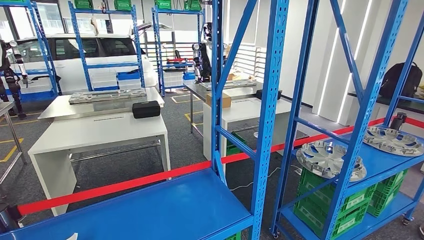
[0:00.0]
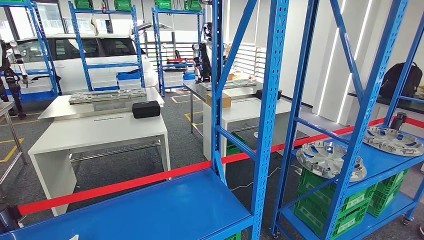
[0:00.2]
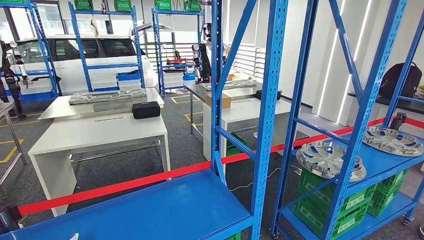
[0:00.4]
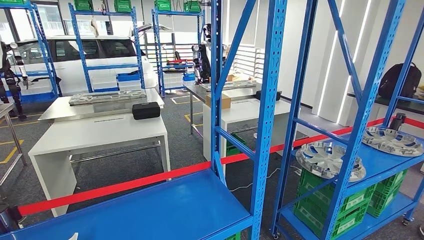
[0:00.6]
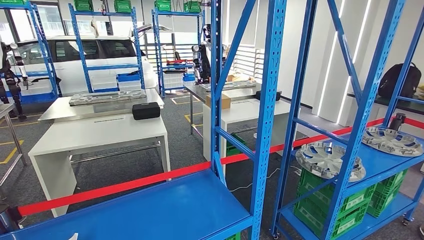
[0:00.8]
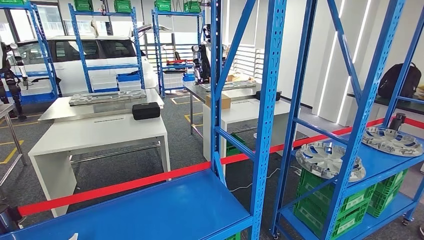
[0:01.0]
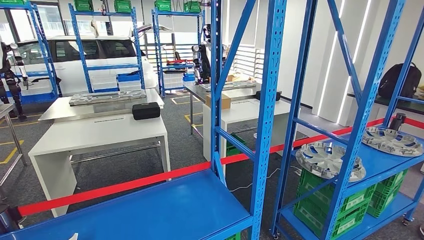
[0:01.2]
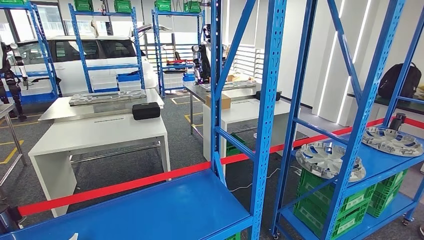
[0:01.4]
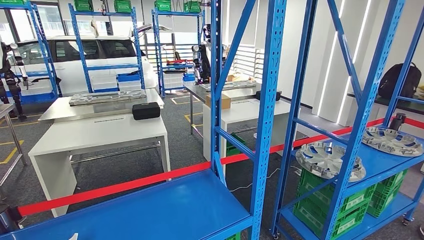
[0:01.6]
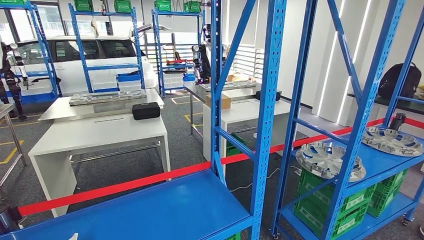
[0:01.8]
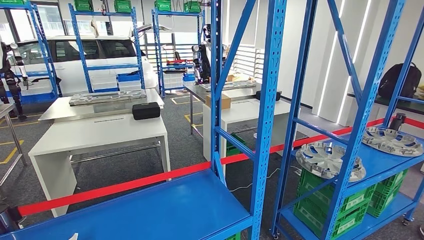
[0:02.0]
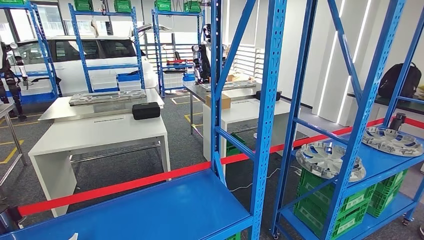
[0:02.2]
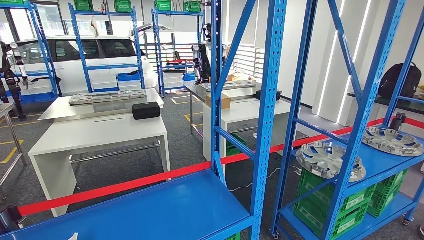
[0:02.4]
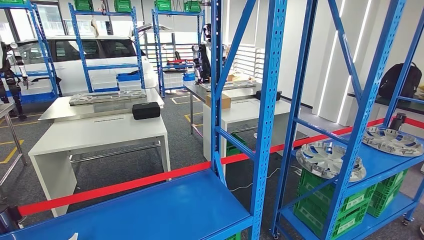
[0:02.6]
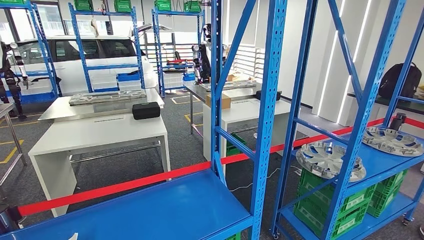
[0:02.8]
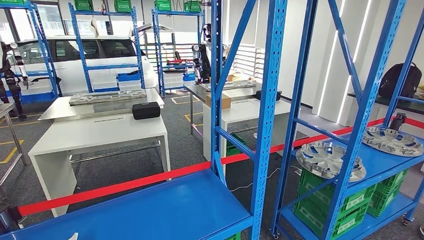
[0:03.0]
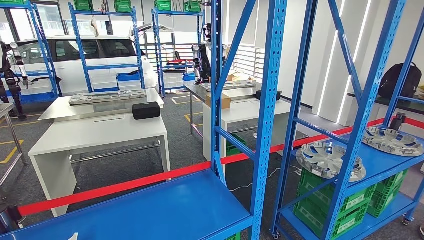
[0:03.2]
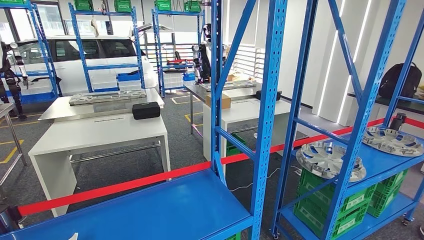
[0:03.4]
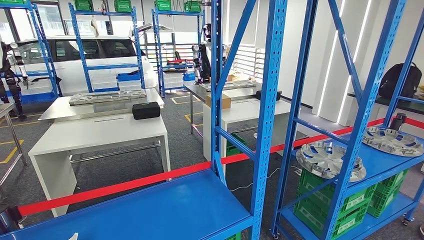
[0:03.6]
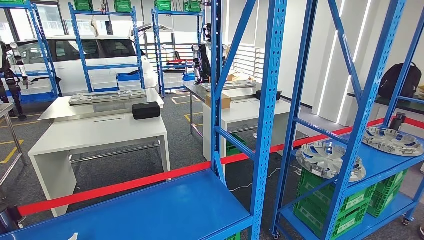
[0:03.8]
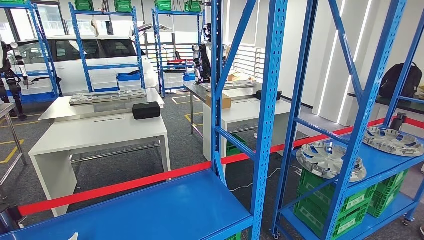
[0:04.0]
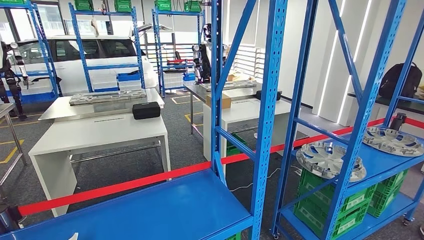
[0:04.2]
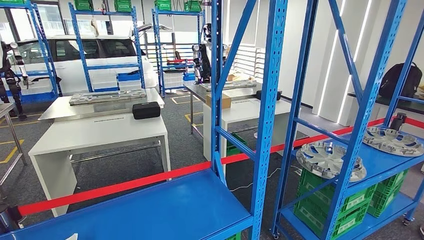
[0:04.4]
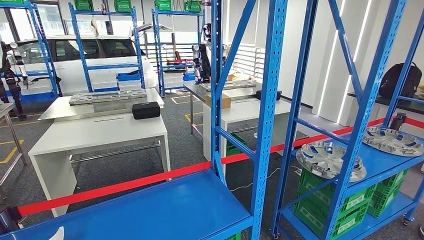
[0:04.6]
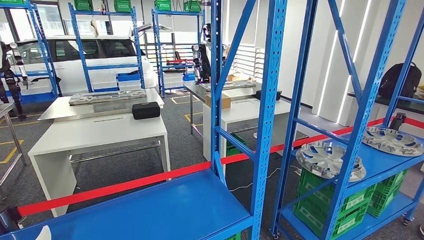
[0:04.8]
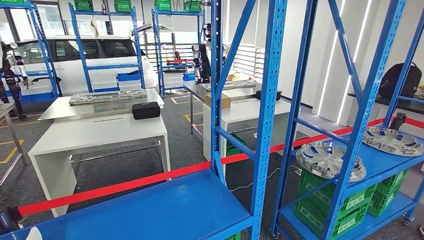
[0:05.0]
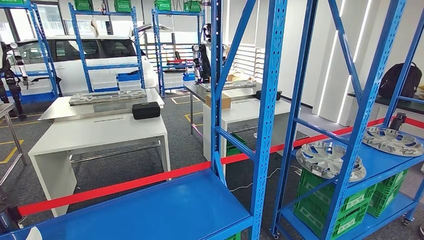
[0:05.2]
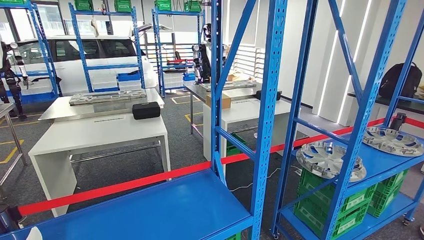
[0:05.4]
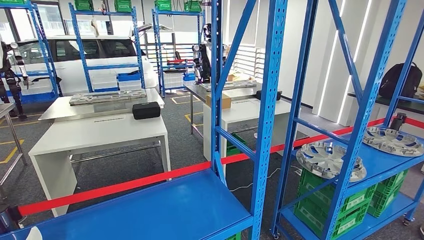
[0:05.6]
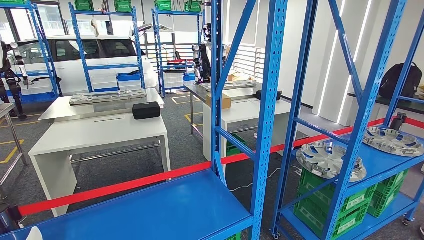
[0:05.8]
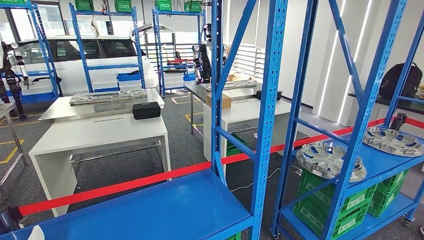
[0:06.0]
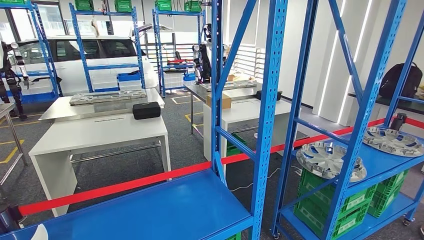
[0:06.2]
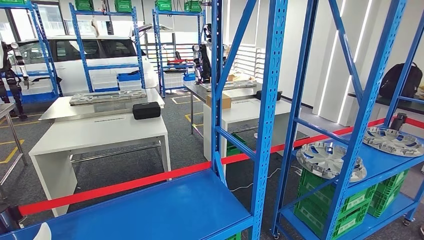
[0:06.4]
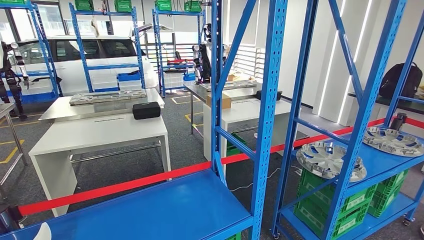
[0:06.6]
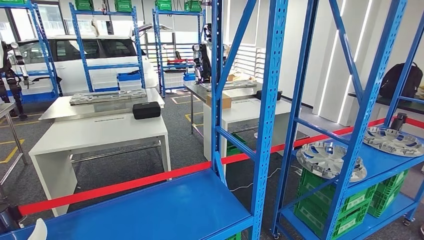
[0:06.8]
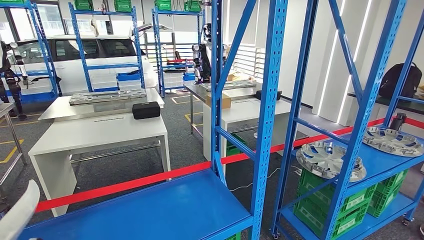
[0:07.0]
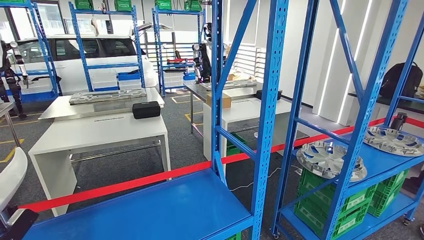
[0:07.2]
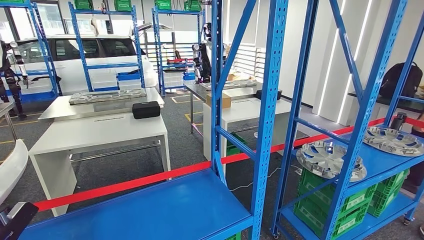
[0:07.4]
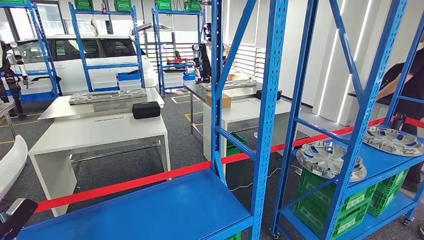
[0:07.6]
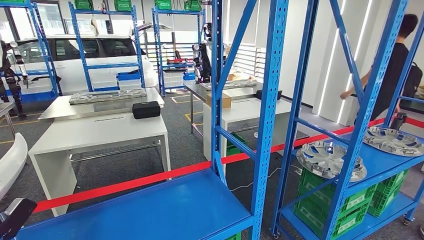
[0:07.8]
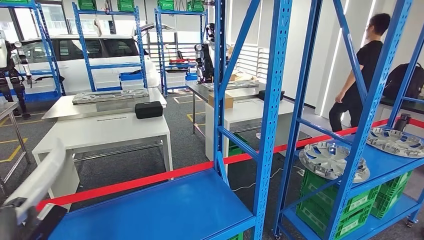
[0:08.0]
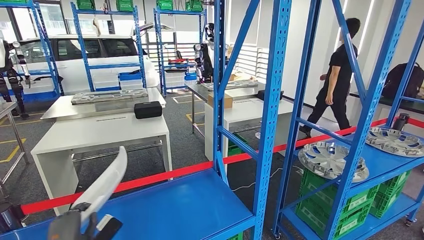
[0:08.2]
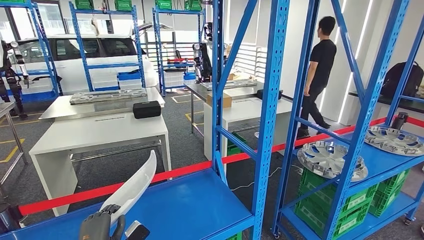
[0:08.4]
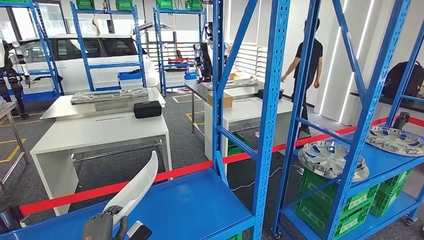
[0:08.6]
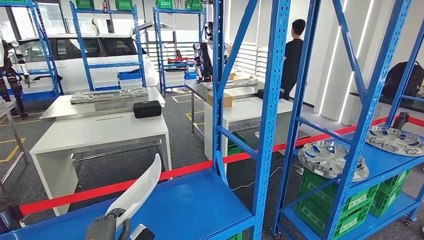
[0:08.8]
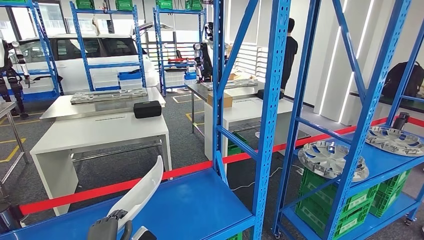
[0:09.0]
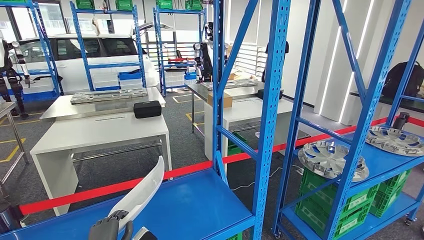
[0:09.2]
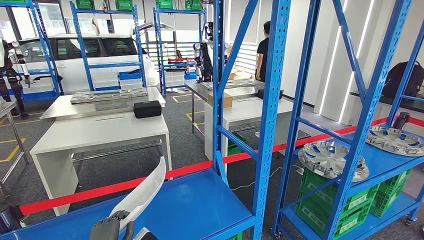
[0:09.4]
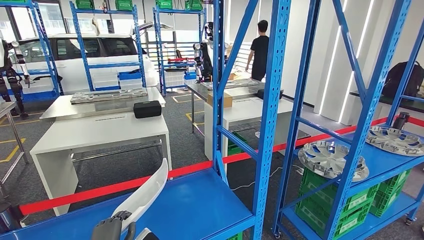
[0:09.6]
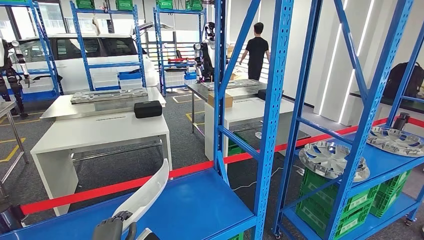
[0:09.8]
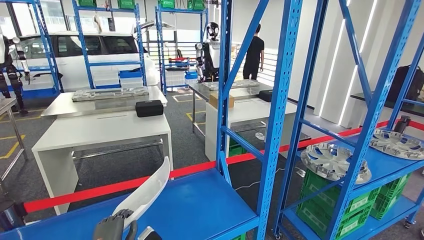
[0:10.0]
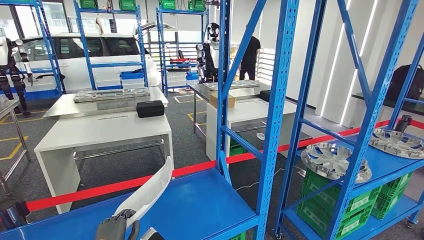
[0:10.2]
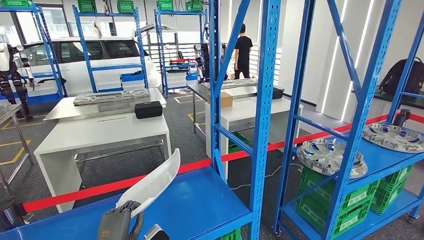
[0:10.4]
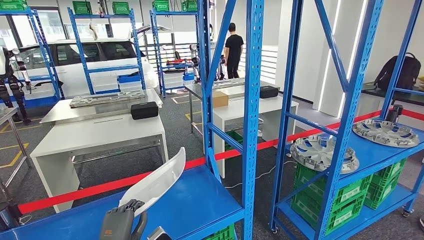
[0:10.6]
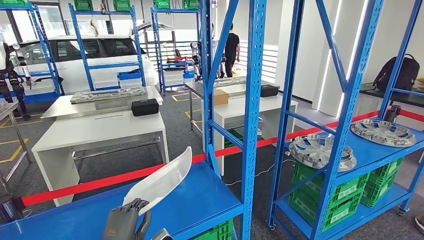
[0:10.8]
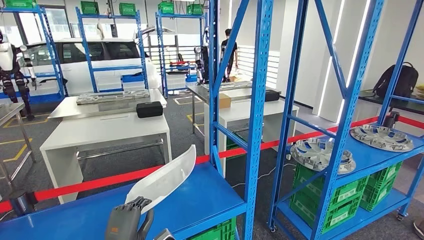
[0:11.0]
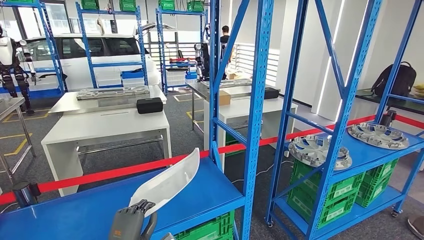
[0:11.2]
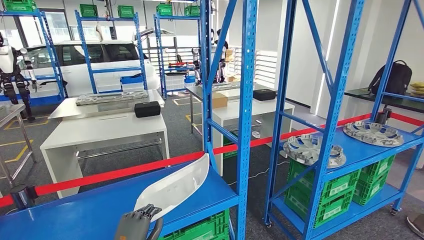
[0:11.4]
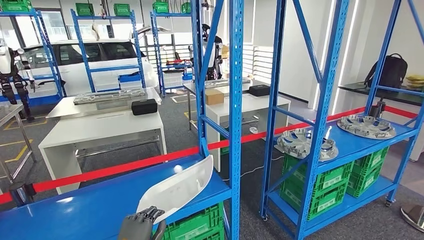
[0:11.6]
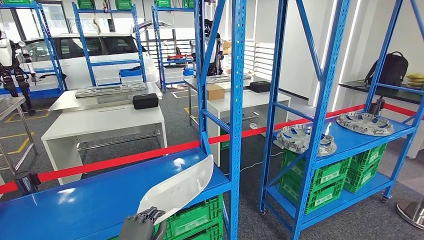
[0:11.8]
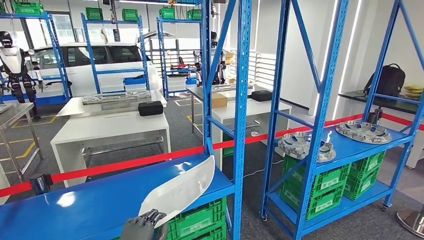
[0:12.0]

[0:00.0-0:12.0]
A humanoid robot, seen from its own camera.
Step, 0:00.0 to 0:07.6: Pick up the small component from the shelf.
0:00.0 to 0:01.6: Both hands stay about where they are.
0:01.6 to 0:03.0: Both hands stay about where they are.
0:06.0 to 0:07.6: The left hand heads upward and forward, covering some 20 cm.

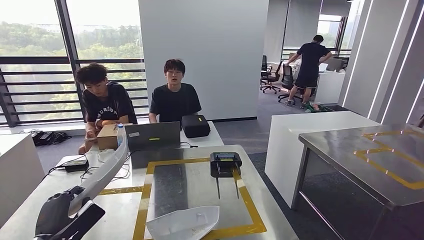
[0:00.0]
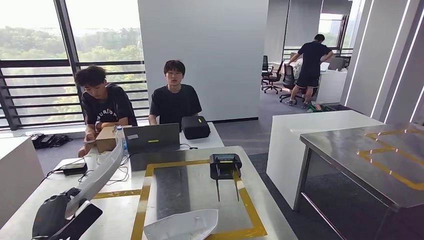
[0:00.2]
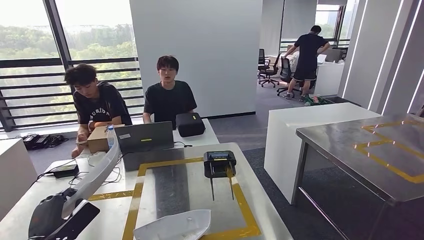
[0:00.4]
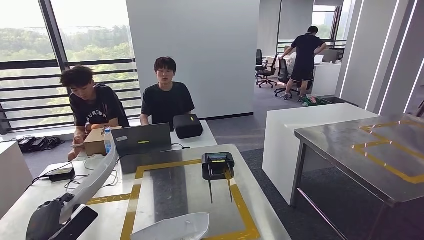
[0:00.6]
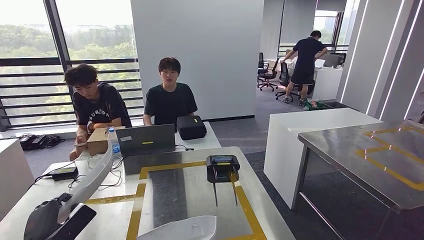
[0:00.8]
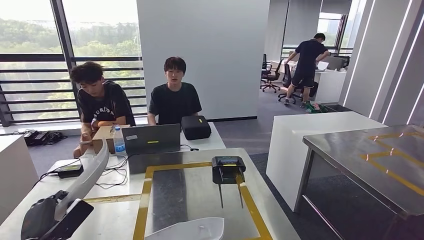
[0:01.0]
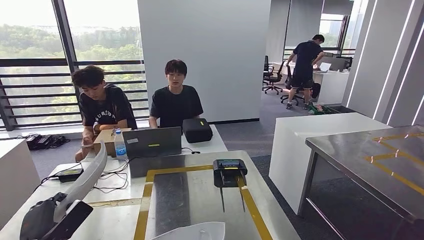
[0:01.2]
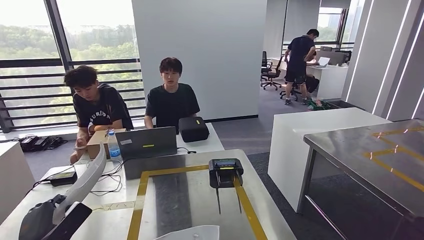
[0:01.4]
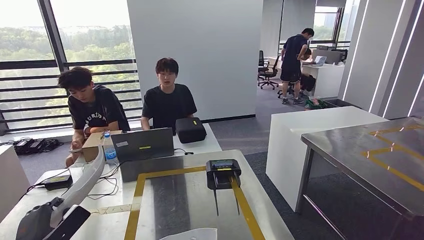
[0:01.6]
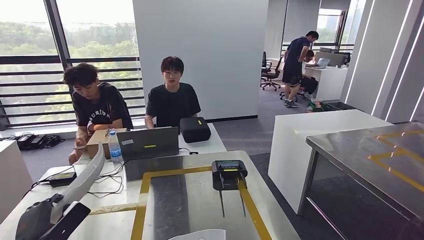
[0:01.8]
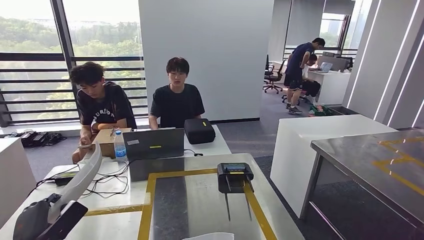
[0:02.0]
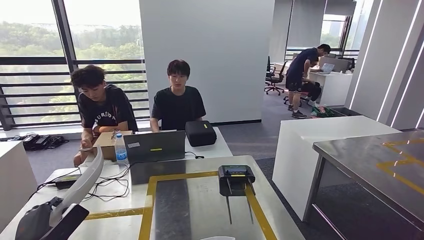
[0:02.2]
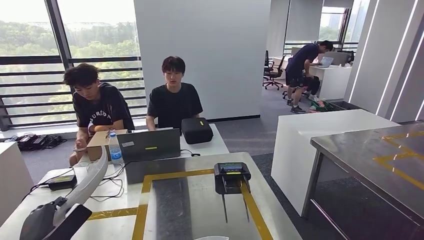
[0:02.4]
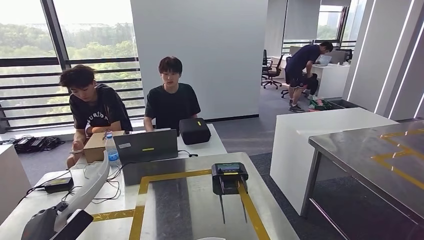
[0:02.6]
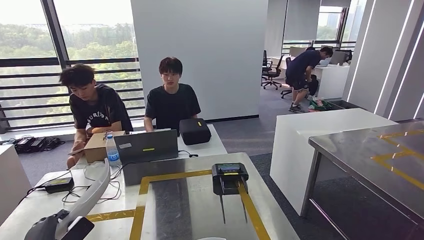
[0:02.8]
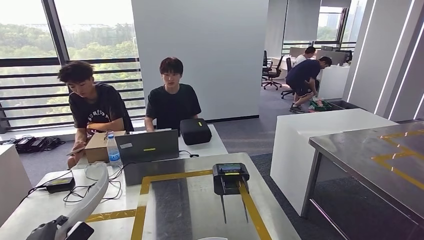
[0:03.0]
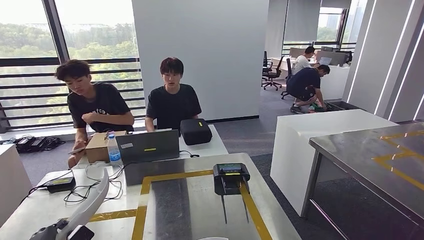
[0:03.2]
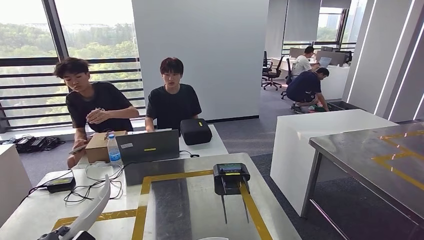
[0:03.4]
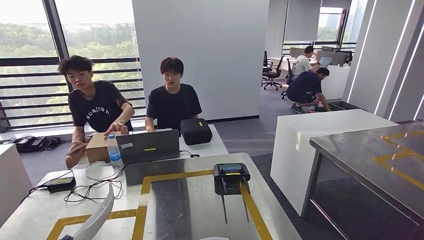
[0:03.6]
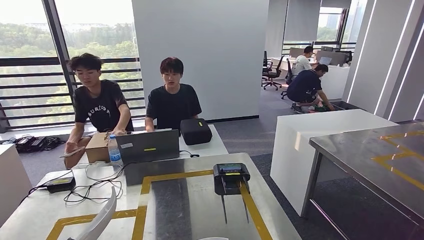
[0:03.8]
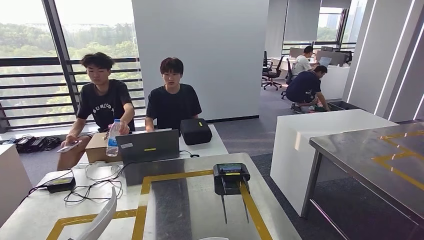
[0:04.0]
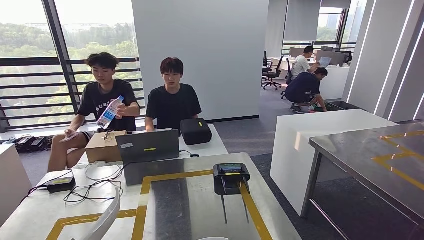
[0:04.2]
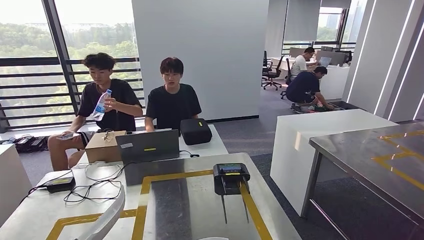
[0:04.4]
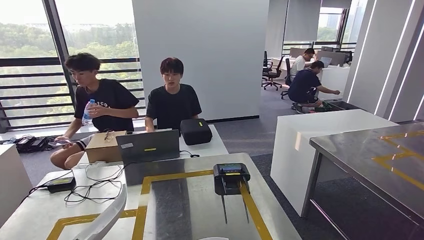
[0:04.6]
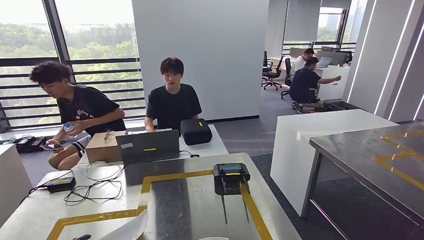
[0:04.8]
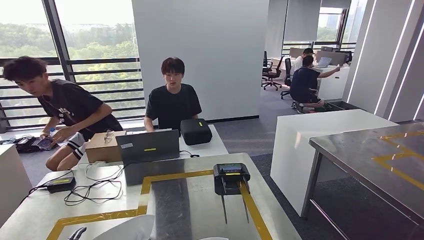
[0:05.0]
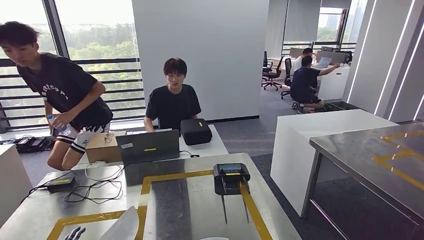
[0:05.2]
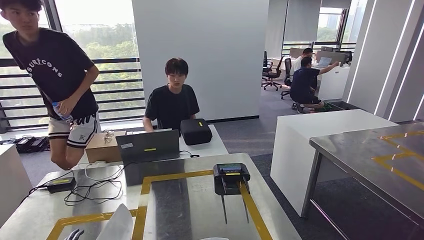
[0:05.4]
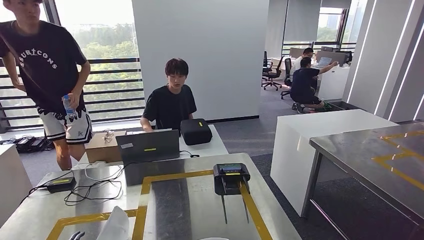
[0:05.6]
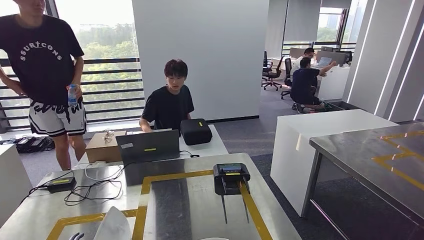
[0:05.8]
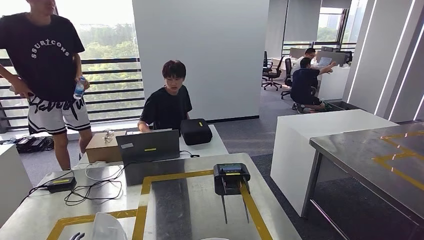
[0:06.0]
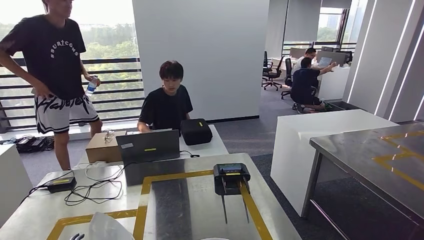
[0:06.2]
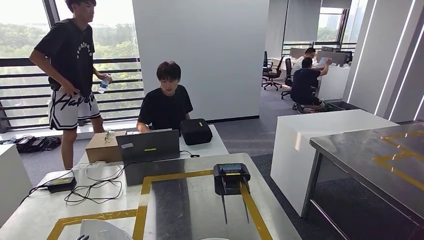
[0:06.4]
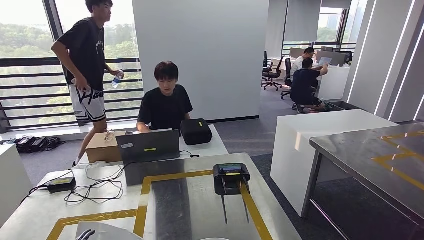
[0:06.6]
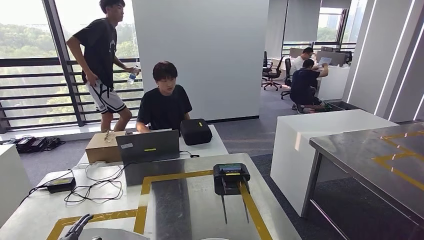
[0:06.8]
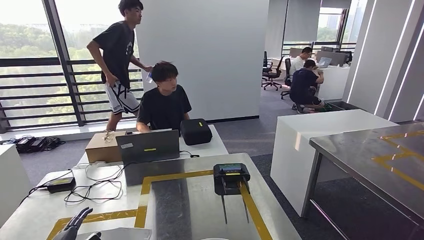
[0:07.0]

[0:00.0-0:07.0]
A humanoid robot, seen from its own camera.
Step, 0:00.0 to 0:06.0: Insert the small component into the corresponding slot on the workbench.
0:02.8 to 0:04.2: The left hand shifts roughly 5 cm downward.
0:04.2 to 0:05.6: The hands make only small movements.
